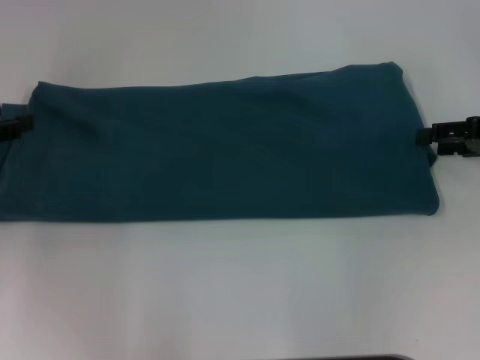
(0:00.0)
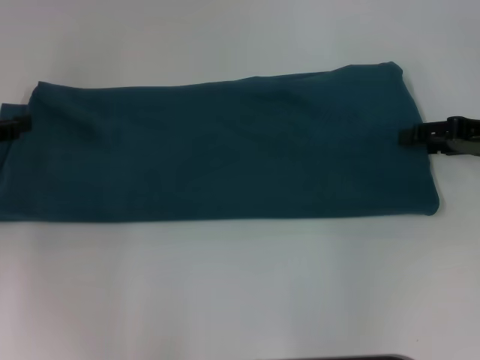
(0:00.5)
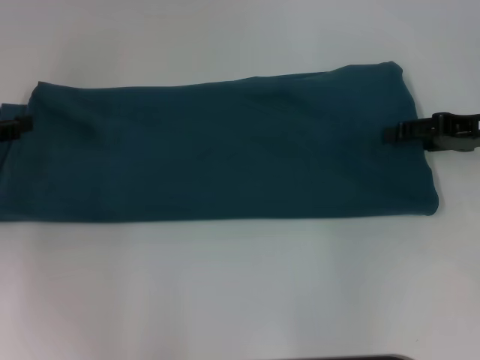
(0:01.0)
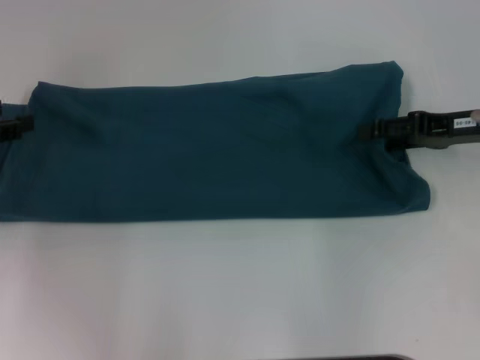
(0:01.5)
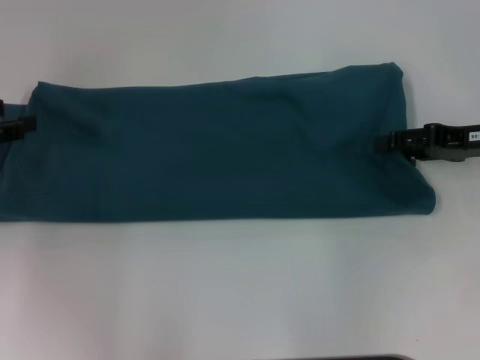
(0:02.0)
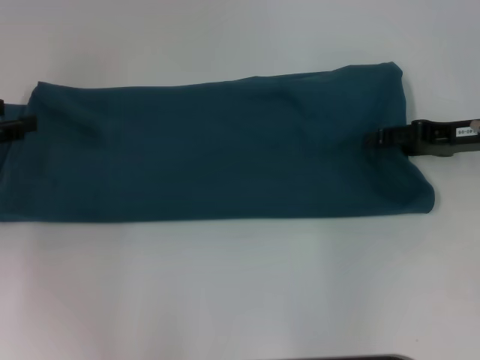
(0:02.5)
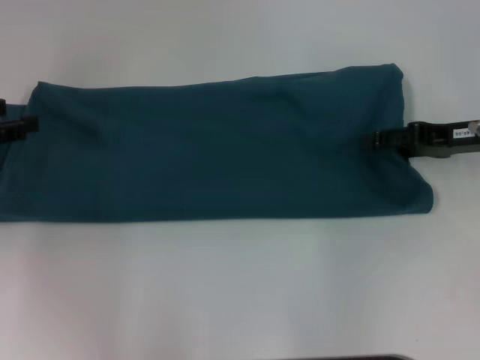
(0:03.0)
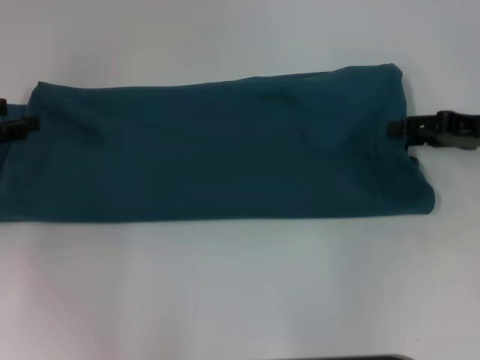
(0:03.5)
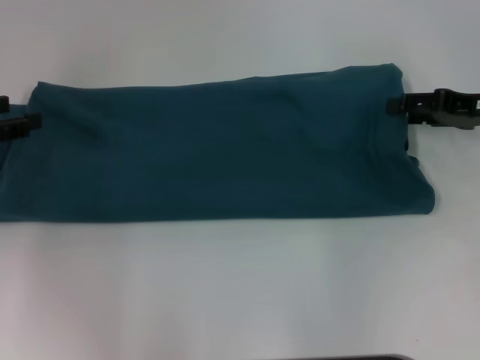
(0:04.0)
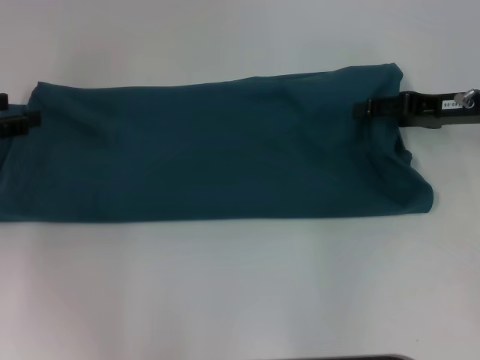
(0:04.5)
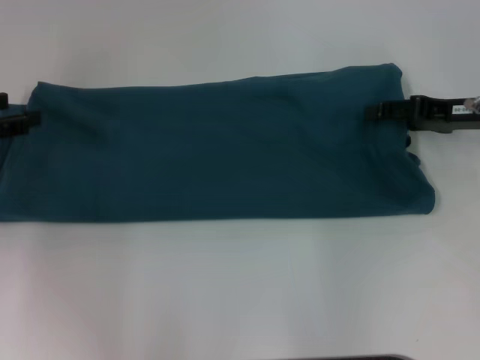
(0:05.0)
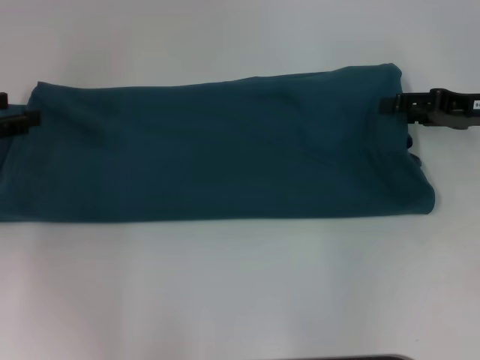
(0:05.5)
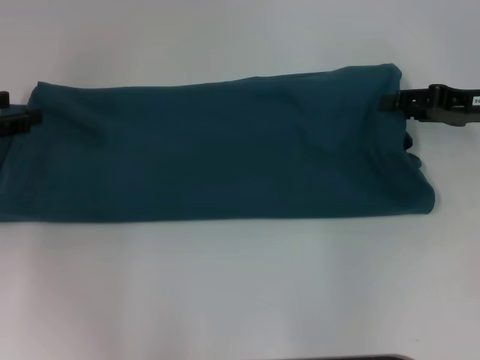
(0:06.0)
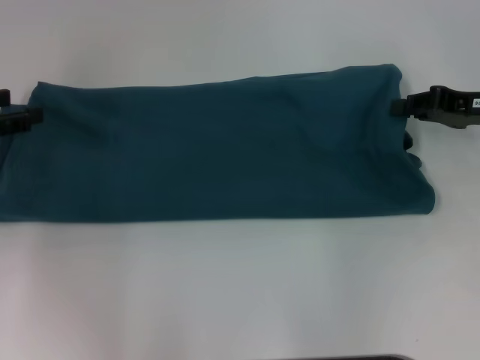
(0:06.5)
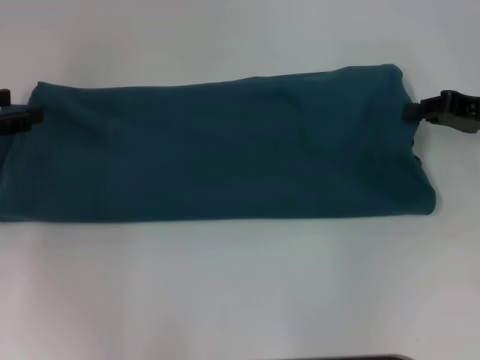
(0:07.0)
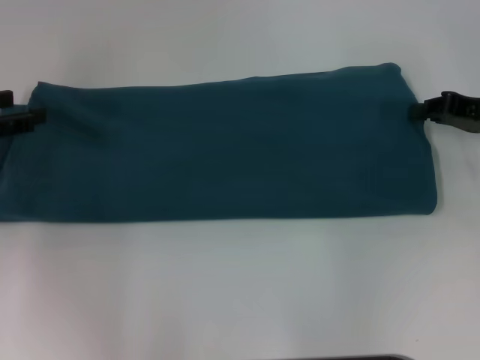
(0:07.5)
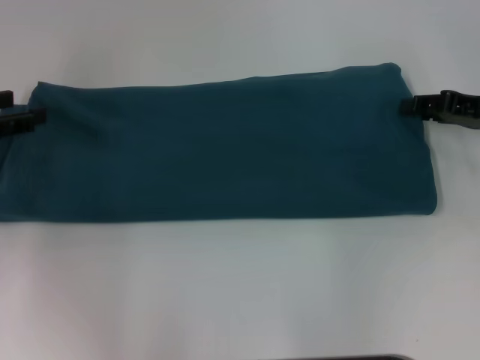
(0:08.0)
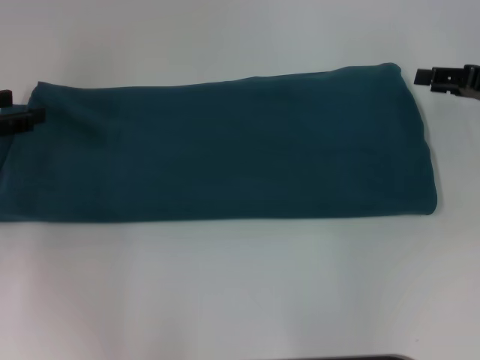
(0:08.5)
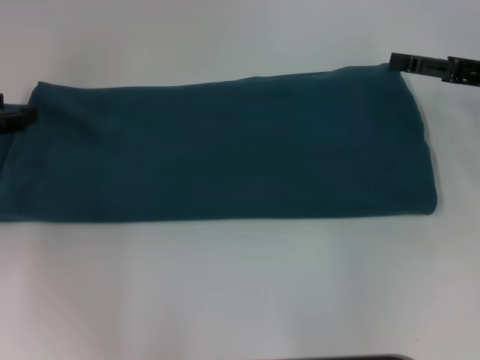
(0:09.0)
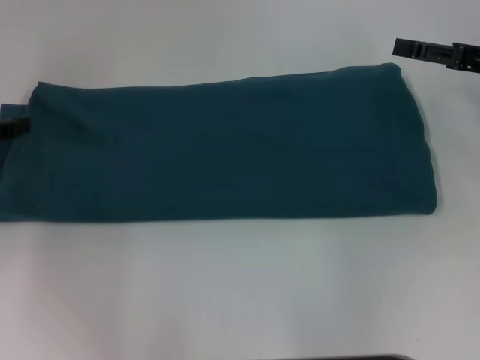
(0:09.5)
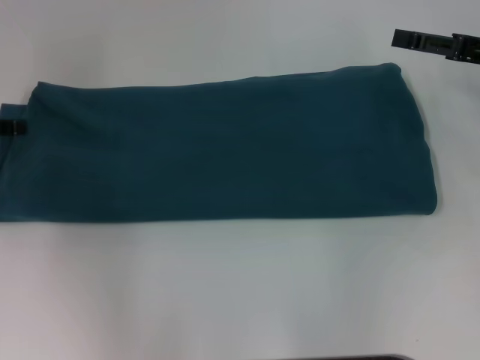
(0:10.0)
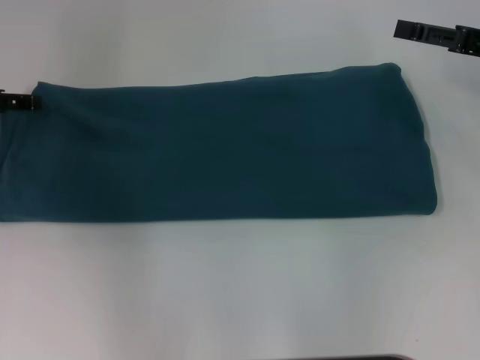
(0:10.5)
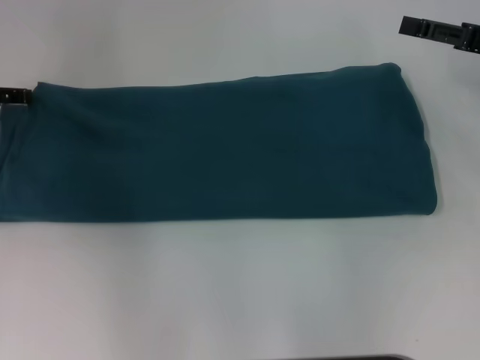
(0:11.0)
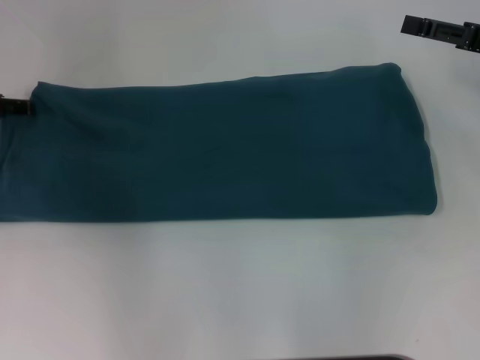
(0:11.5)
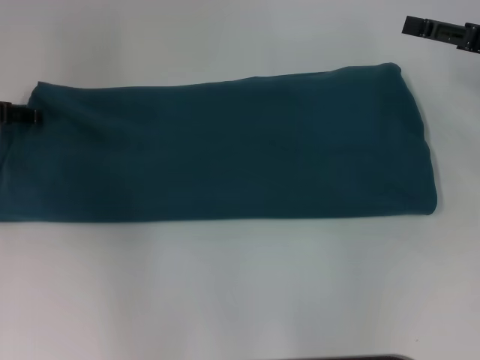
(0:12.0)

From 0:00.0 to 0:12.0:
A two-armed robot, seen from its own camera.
From 0:00.0 to 0:02.0: The grippers stay close to where they were, moving slightly.
From 0:02.0 to 0:04.0: The grippers move only a little.
From 0:06.0 to 0:08.0: The right gripper closes its fingers.
From 0:08.0 to 0:10.0: The right gripper opens up.

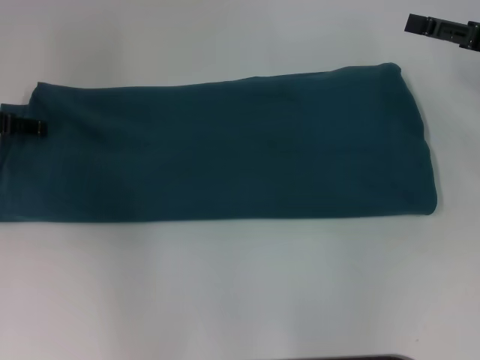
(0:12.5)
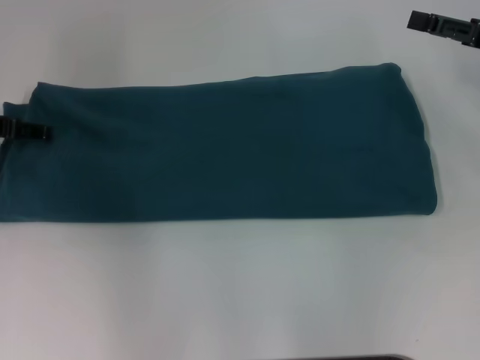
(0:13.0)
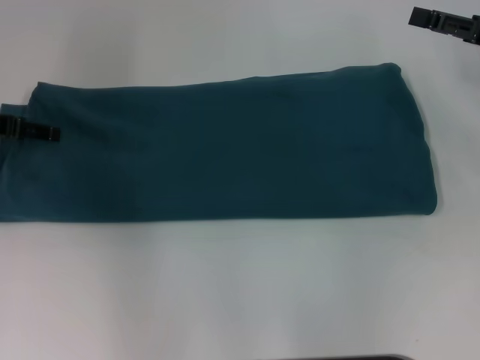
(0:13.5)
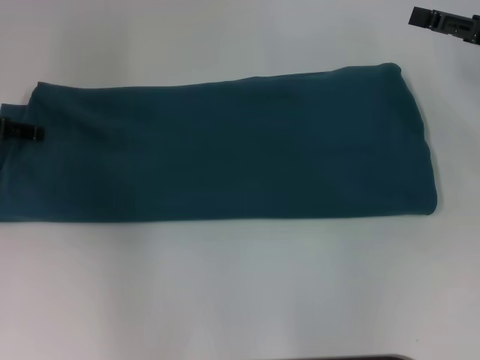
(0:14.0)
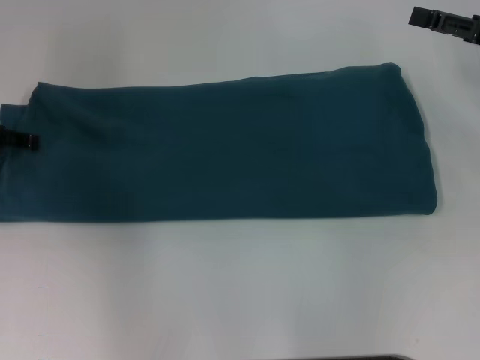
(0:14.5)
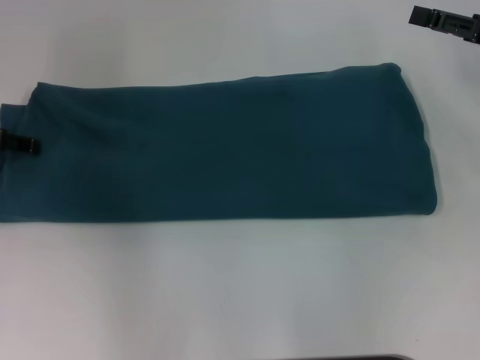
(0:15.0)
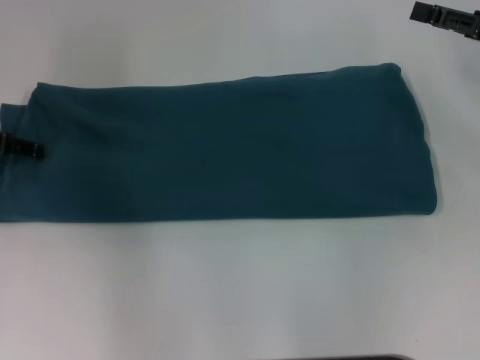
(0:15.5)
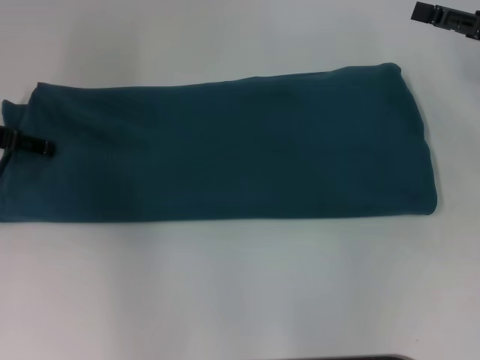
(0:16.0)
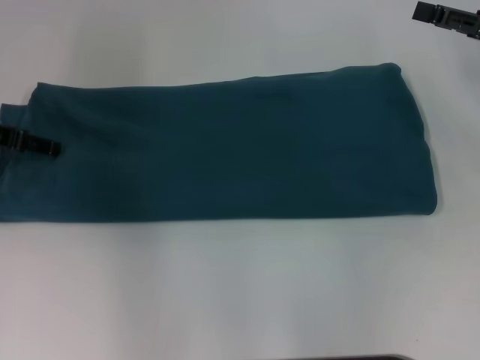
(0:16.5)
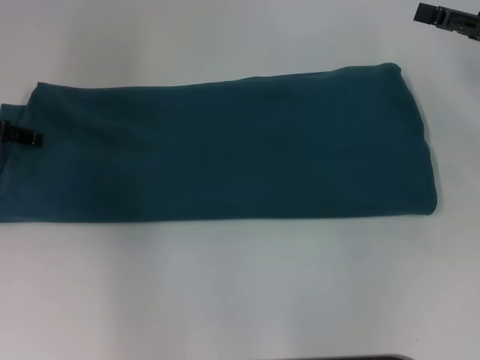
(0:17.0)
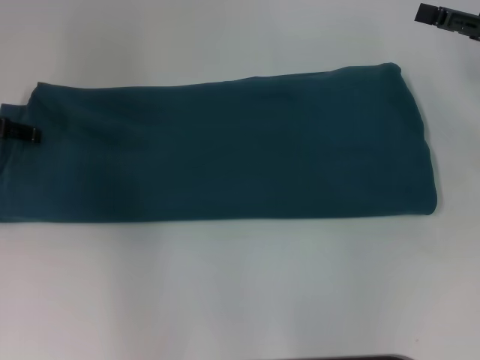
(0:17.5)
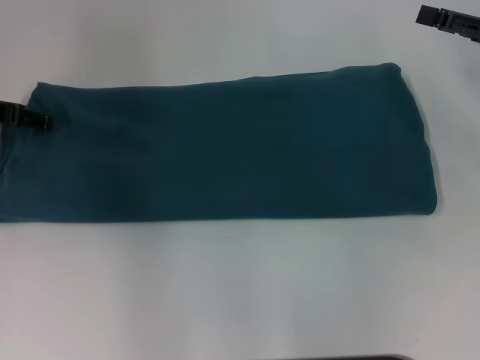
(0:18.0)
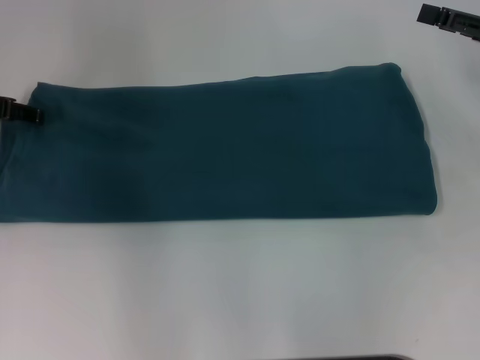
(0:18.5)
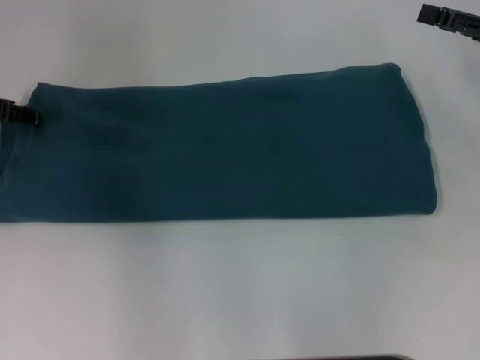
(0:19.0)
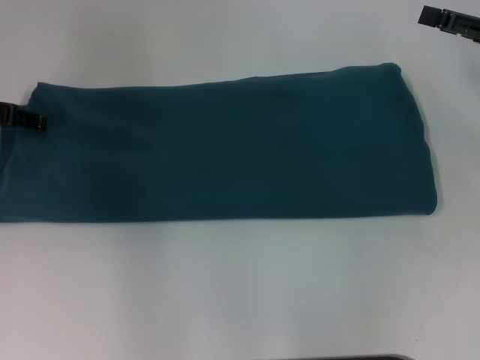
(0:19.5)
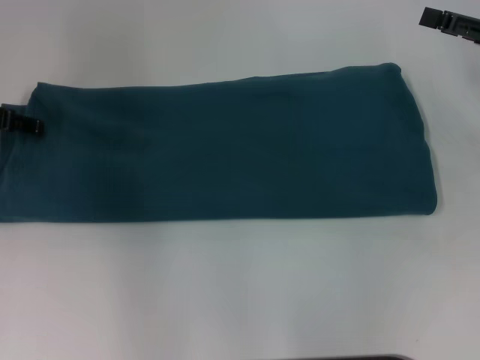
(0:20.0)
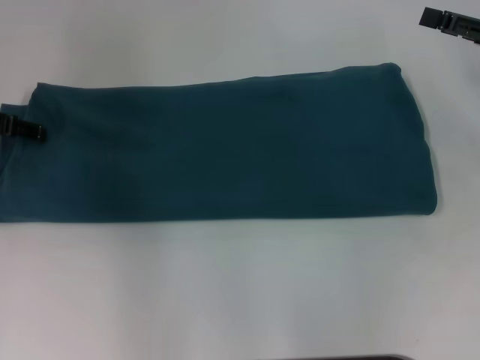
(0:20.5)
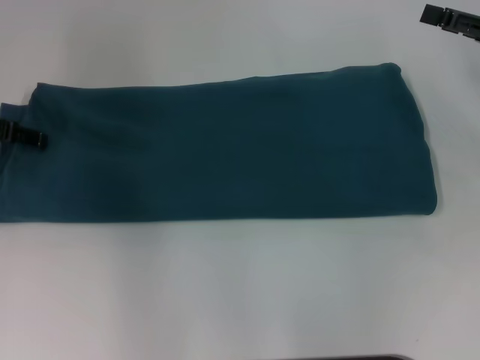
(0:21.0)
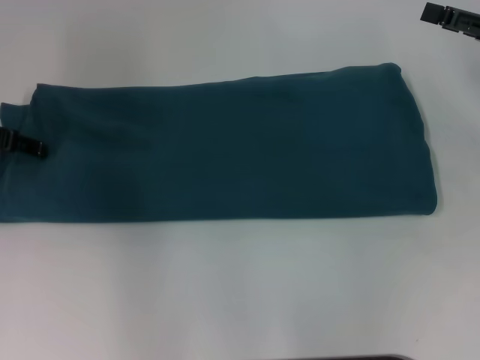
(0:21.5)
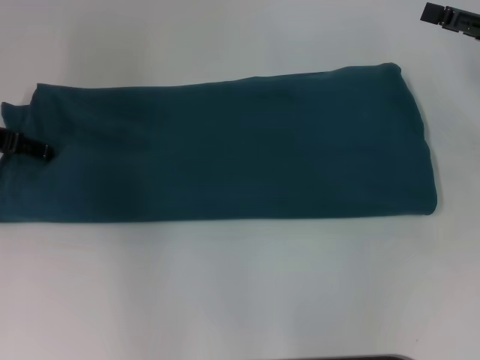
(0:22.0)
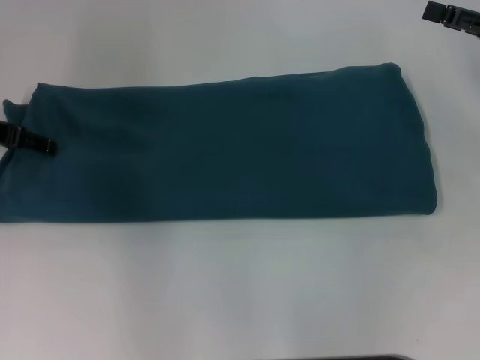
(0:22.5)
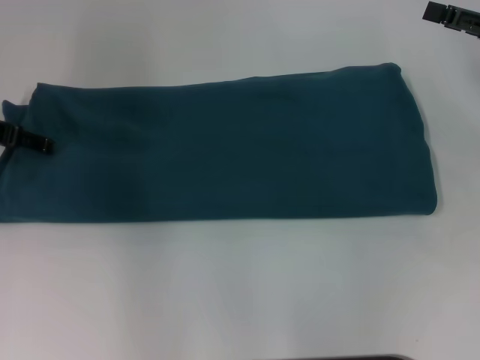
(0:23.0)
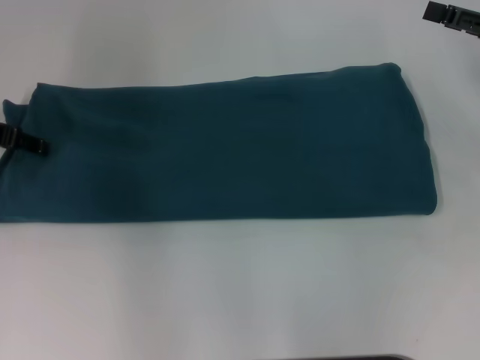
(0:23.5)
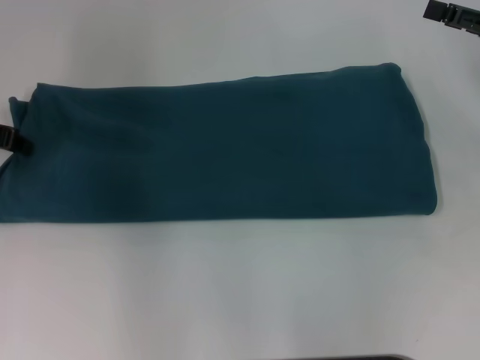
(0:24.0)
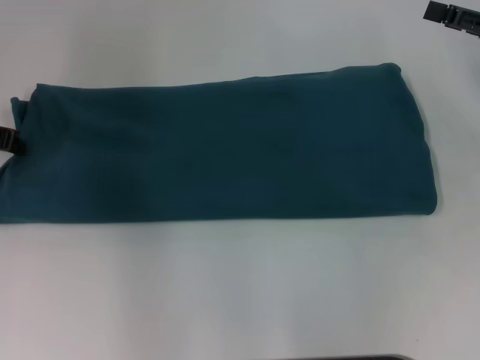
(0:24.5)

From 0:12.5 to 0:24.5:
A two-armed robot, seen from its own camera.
From 0:12.5 to 0:14.5: The grippers stay close to where they were, moving slightly.
From 0:16.5 to 0:18.5: The grippers stay close to where they were, moving slightly.
From 0:18.5 to 0:20.5: Both grippers stay put.
From 0:20.5 to 0:22.5: There are only small adjustments of the grippers.

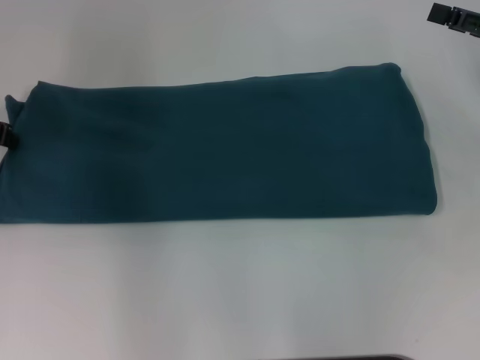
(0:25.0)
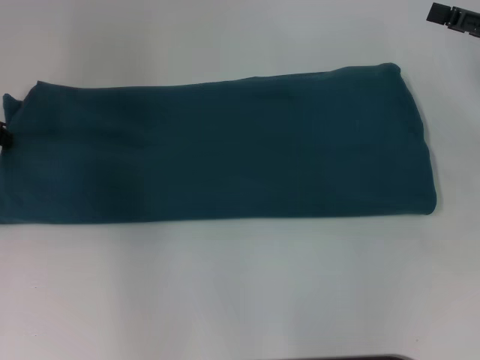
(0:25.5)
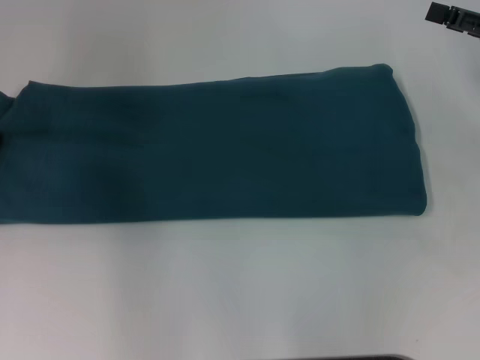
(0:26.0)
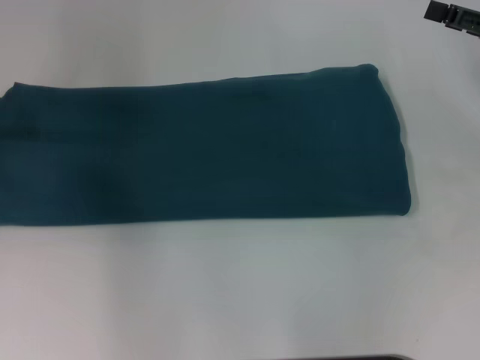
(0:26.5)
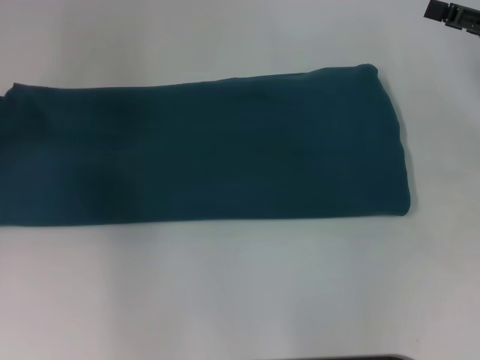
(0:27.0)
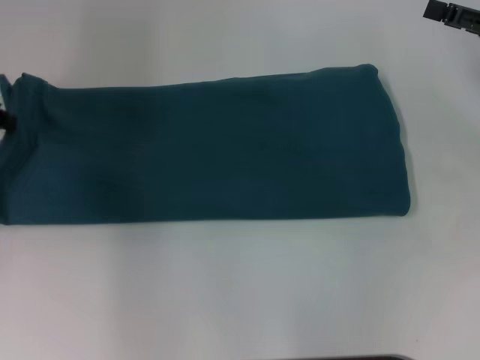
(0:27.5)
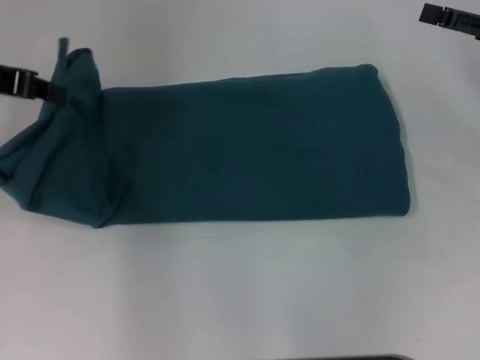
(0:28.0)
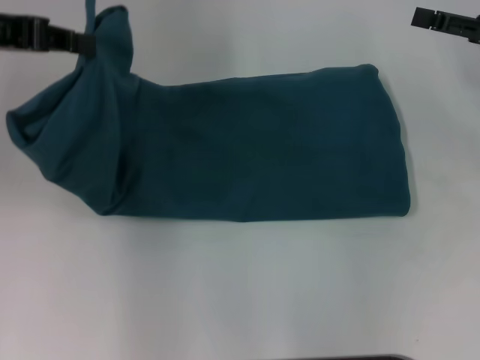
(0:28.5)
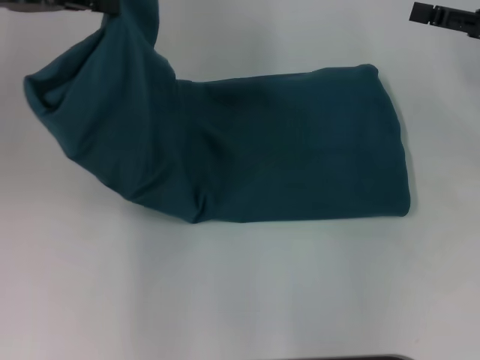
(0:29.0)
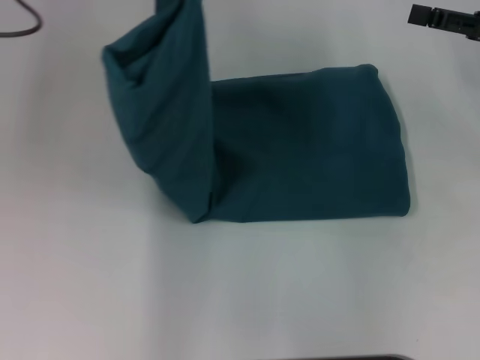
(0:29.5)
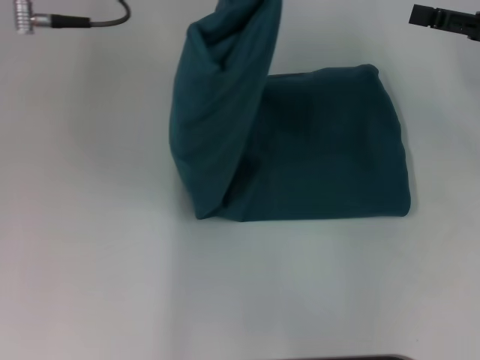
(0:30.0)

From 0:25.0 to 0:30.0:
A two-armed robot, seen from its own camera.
From 0:25.0 to 0:27.5: The grippers make only small movements.
From 0:27.5 to 0:30.0: The left gripper travels to the right and upward by approximately 20 cm.
